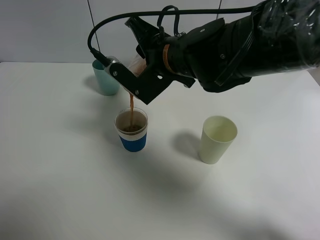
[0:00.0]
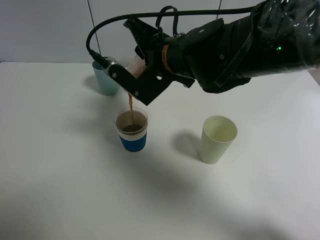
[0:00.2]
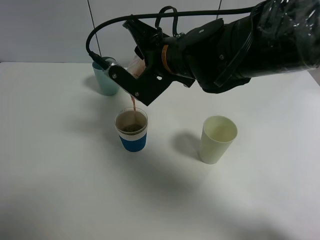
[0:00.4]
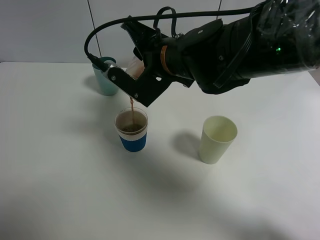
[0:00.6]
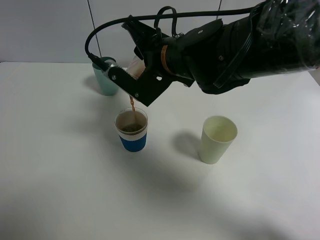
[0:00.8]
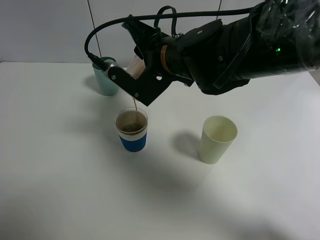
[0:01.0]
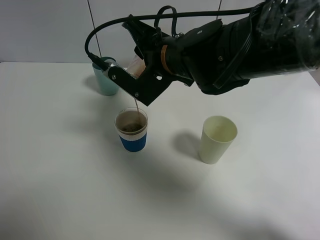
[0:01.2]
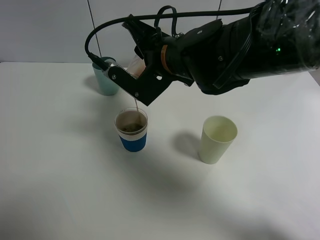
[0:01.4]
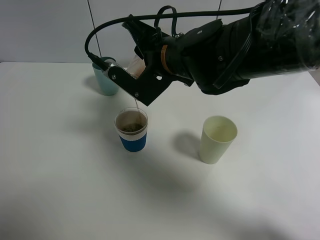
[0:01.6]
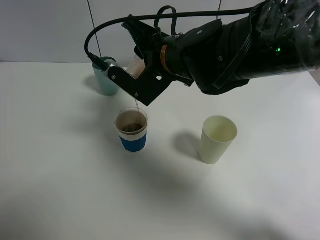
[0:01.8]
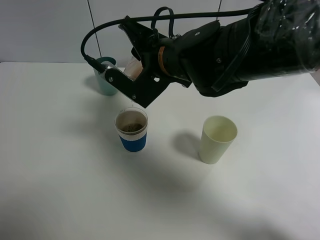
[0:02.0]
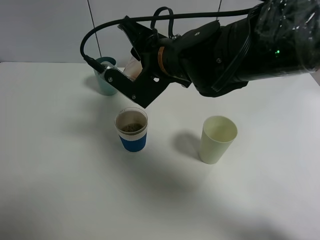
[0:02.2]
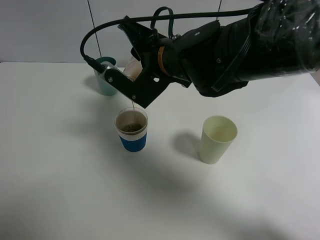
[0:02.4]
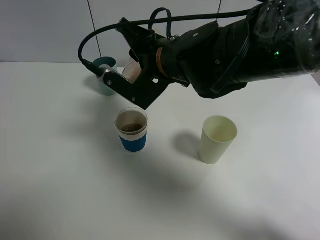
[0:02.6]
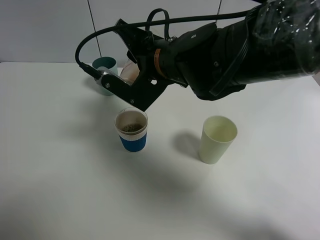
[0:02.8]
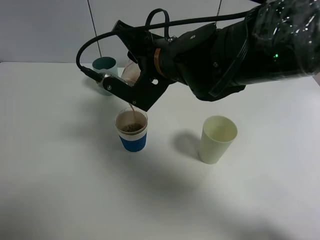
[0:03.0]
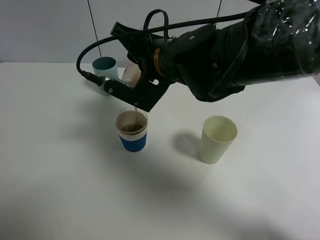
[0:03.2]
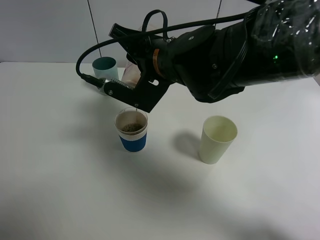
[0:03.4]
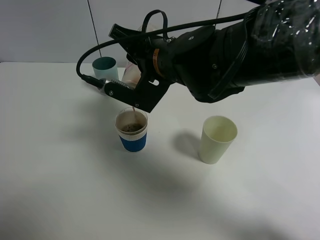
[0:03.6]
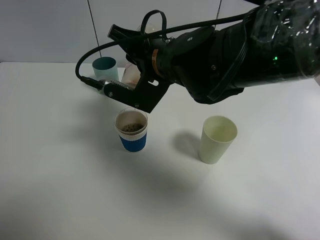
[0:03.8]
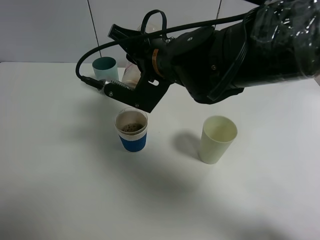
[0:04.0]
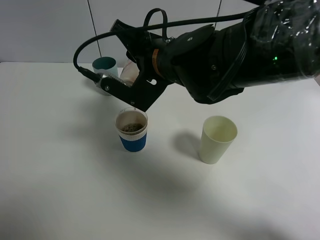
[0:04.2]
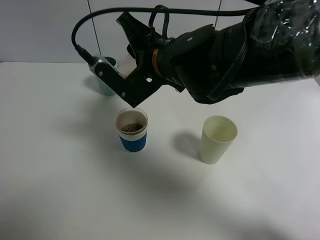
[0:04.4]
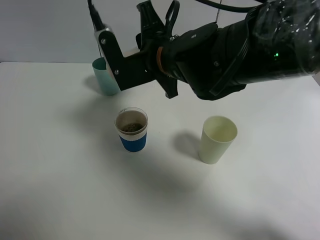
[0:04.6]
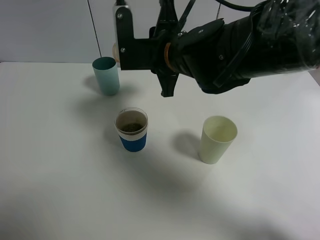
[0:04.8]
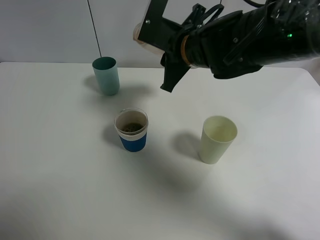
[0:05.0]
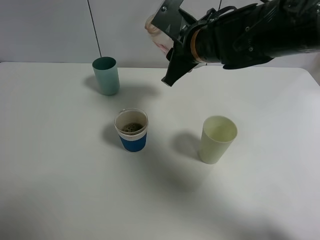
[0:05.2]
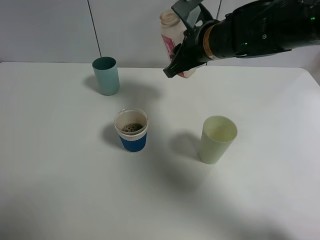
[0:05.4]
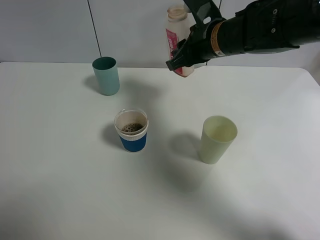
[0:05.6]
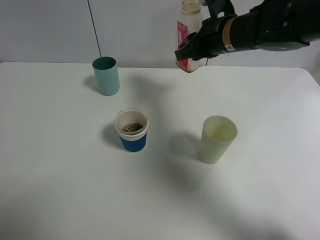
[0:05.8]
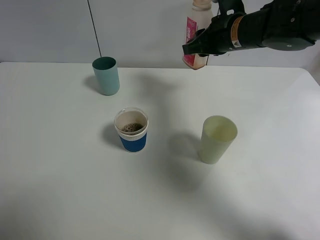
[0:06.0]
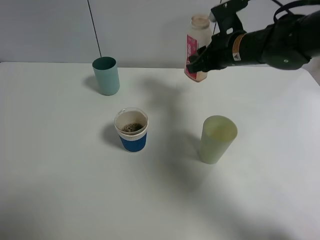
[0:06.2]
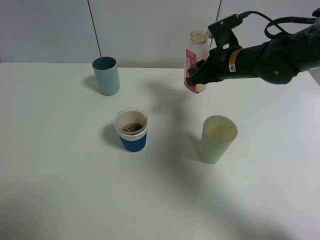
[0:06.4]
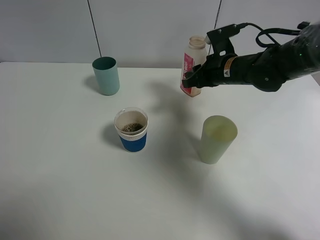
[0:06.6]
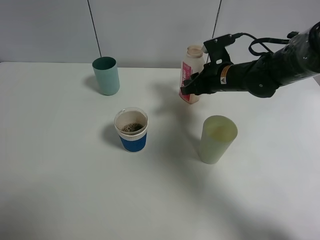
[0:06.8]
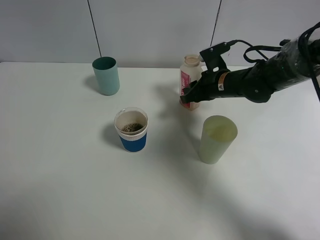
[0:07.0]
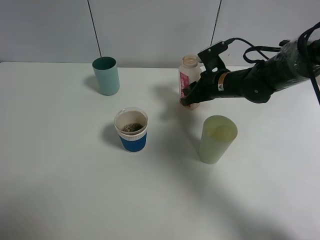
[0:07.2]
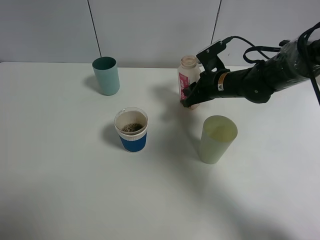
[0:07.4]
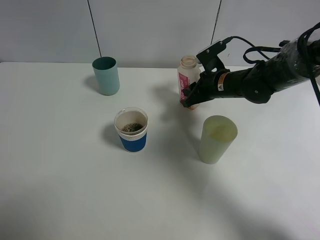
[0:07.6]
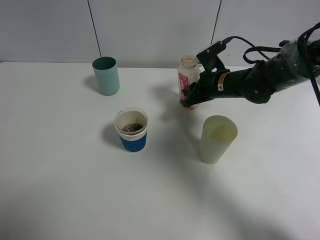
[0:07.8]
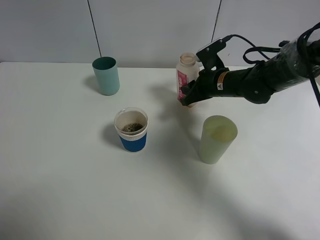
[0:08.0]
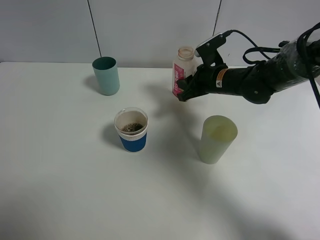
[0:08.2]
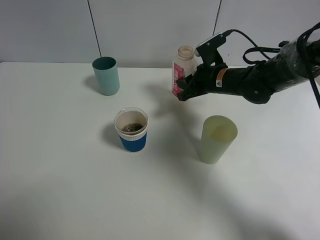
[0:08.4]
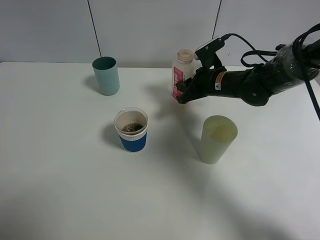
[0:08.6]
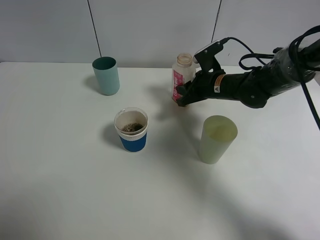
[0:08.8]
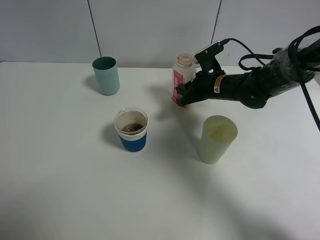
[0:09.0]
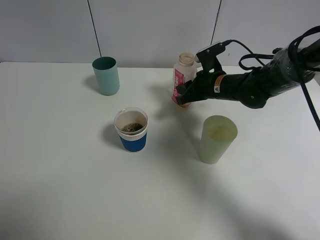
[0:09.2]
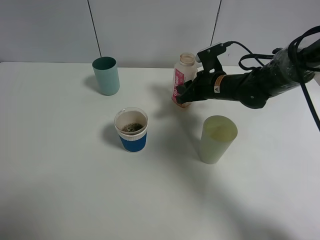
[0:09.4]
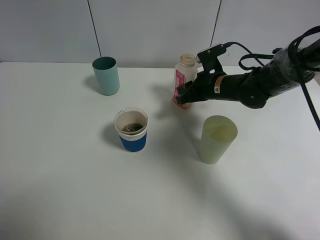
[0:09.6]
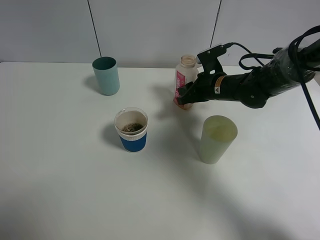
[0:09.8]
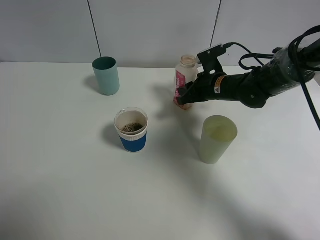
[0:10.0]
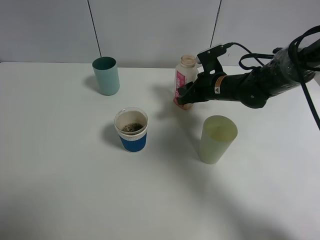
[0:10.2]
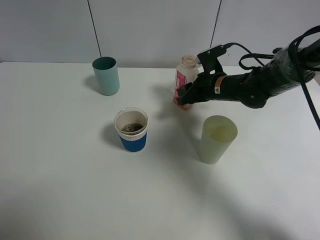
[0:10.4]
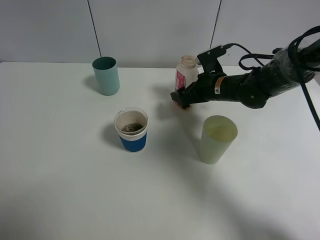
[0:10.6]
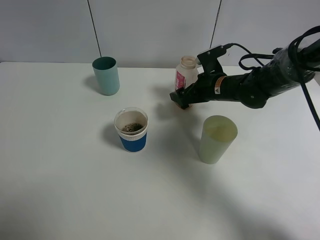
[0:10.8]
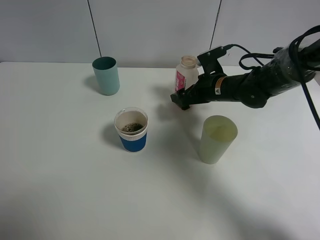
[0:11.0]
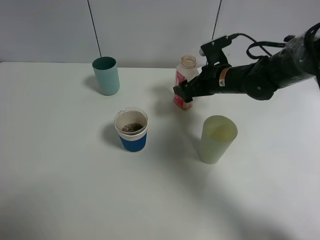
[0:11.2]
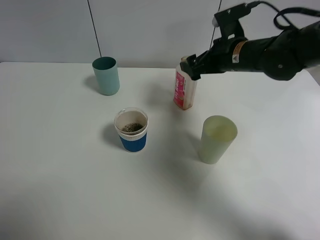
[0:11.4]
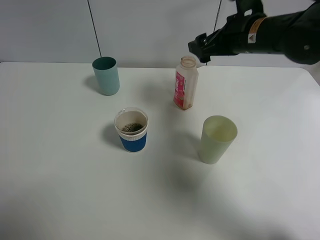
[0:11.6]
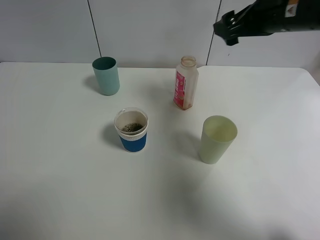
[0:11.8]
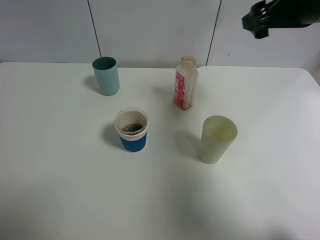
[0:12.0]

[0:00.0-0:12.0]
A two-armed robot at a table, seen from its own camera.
Task of the whole recording: use a gripper to hold the bottle of the drink and pour it into a random cup.
Step, 0:00.0 to 0:04.4: Pour the mineral water into the paper cup with the right gripper.
Step, 0:04.6 to 0:11.2: Place the cranberry juice bottle on the table with the right gripper.
0:00.0 to 0:01.6: Both grippers stay about where they are.
0:01.6 to 0:04.4: The grippers make only small movements.
0:04.4 to 0:06.0: The right gripper goes approximately 15 cm to the right and forward.
0:06.0 to 0:07.6: The right gripper goes about 10 cm downward.
0:07.6 to 0:10.4: The grippers move only a little.
0:10.4 to 0:12.0: The right gripper moves upward and to the right, some 25 cm, and opens.

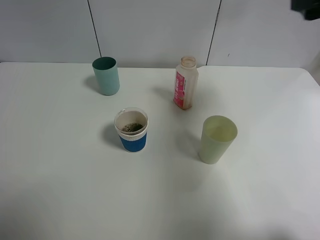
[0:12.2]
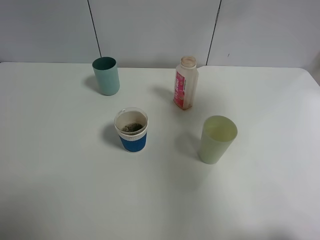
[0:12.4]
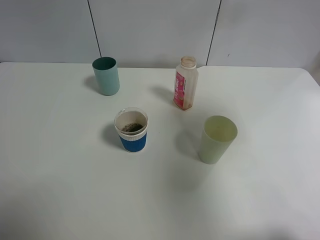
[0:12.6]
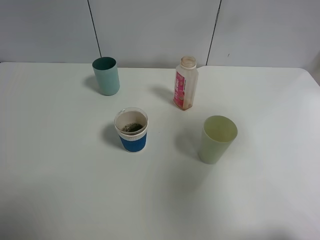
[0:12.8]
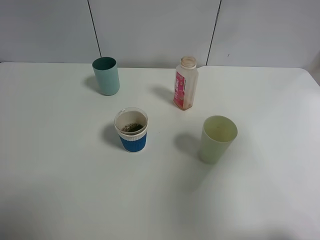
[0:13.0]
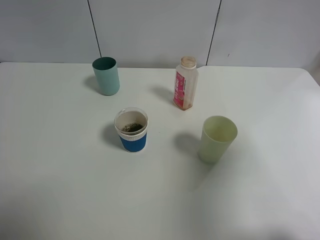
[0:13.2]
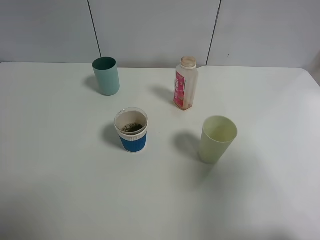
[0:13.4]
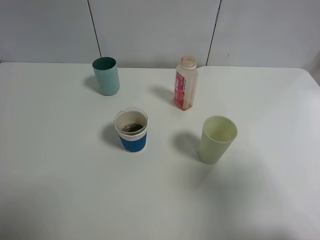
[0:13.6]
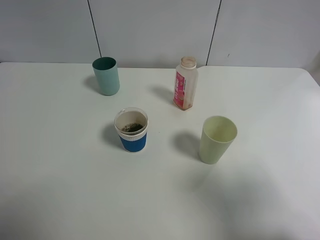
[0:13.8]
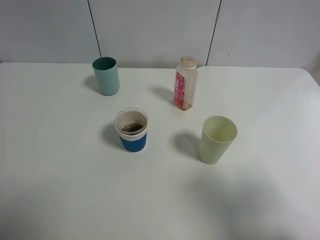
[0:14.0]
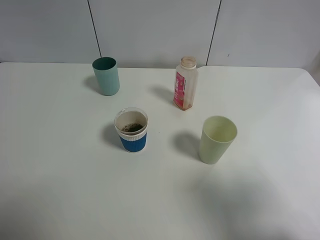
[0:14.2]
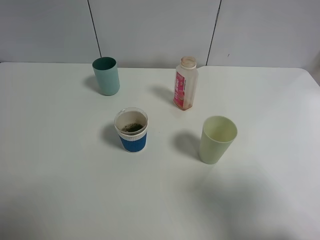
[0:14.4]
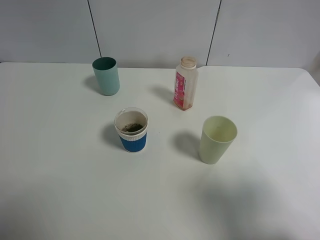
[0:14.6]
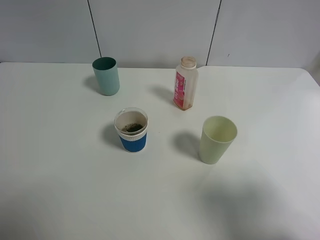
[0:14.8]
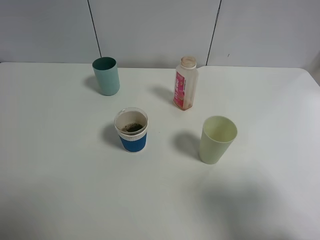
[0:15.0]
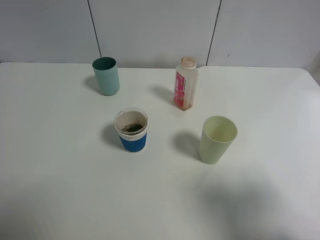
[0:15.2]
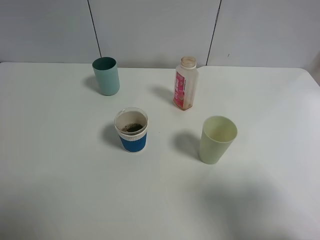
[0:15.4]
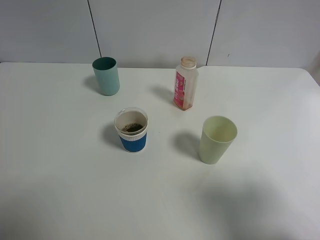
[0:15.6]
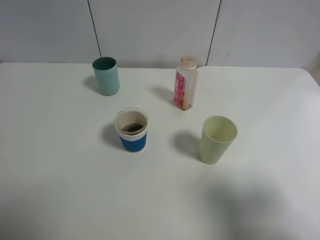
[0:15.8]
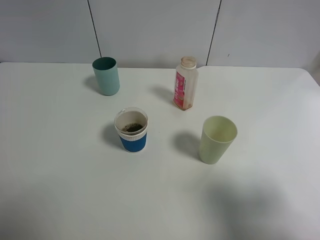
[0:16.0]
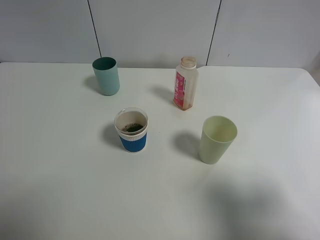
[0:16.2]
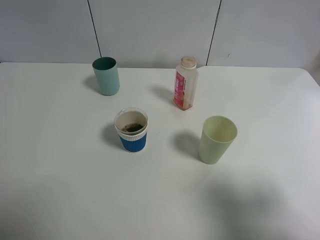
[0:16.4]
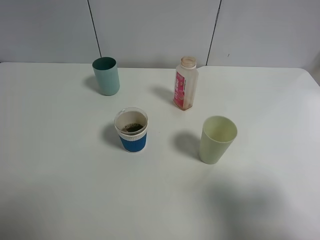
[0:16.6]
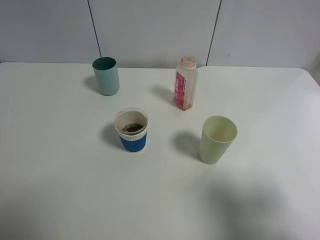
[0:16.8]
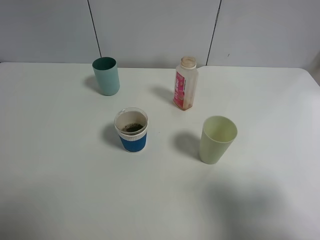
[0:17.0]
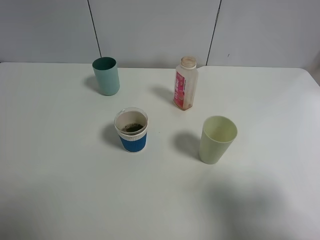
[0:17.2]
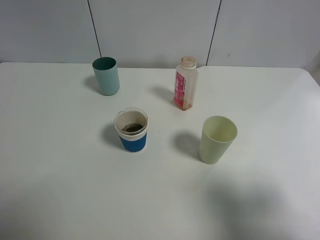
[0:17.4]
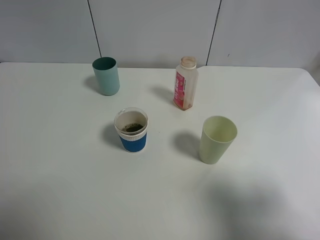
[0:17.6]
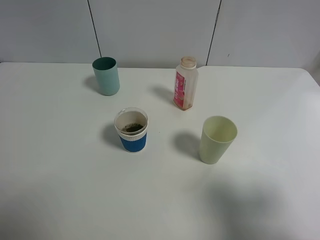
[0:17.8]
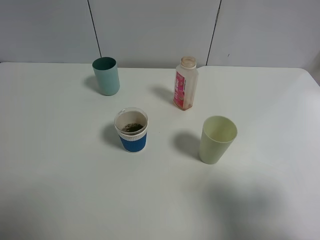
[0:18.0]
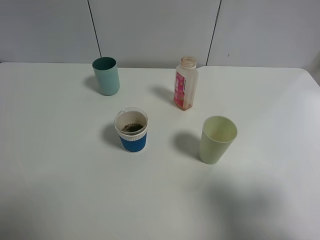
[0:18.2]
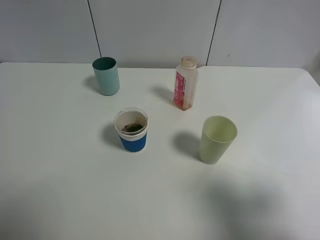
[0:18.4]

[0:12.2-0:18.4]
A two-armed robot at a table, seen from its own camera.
Task of the whole recording: use a gripper to hold the bottle of the drink and pour it into a random cup.
0:12.2 to 0:13.8: The right gripper is displaced backward by approximately 25 cm.
0:16.8 to 0:18.4: Neither gripper changes place.
